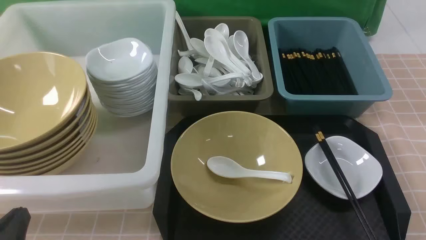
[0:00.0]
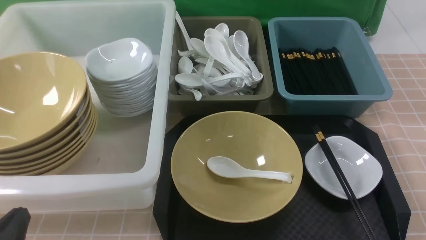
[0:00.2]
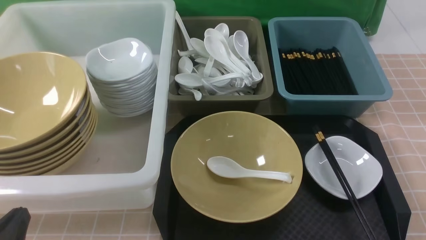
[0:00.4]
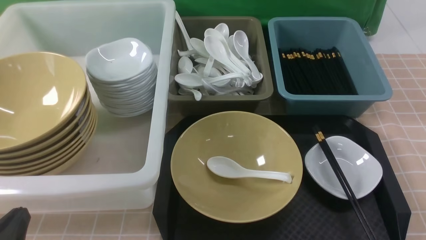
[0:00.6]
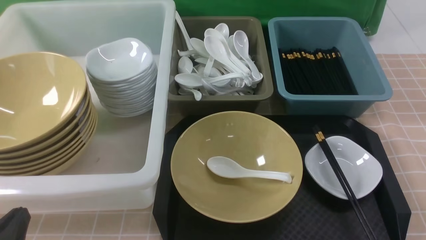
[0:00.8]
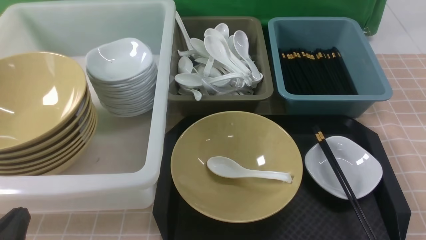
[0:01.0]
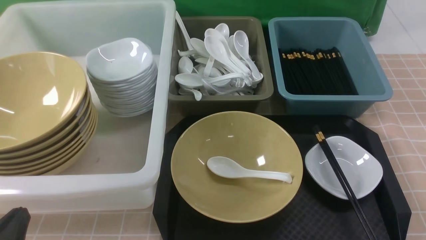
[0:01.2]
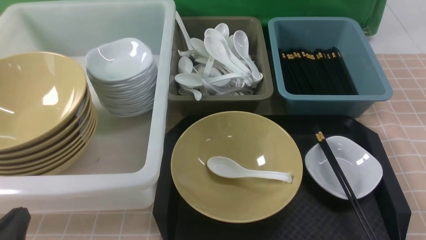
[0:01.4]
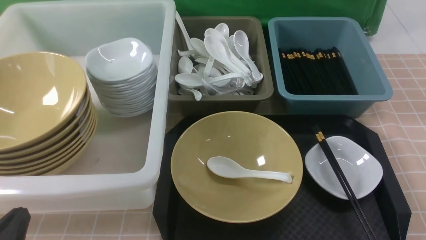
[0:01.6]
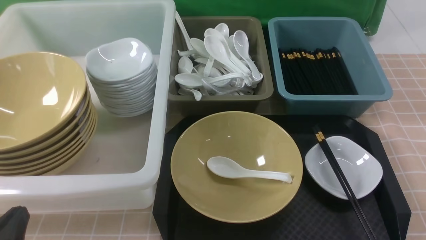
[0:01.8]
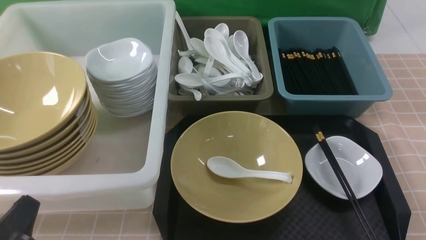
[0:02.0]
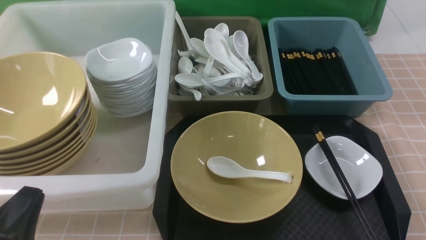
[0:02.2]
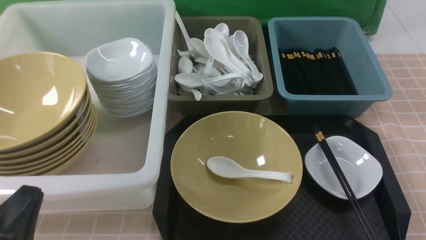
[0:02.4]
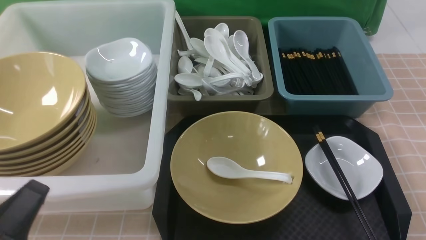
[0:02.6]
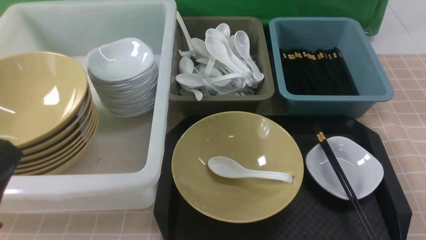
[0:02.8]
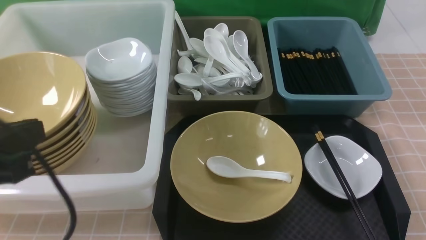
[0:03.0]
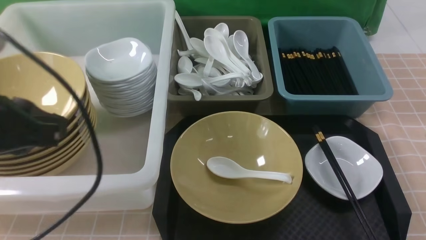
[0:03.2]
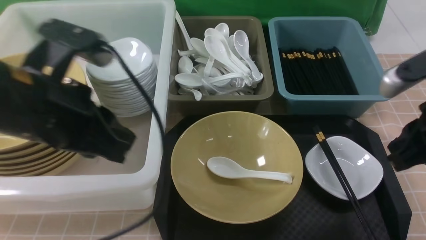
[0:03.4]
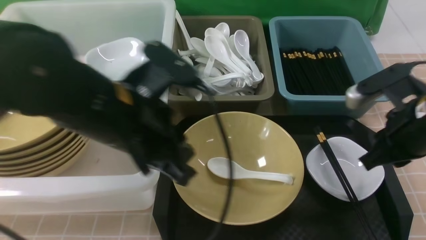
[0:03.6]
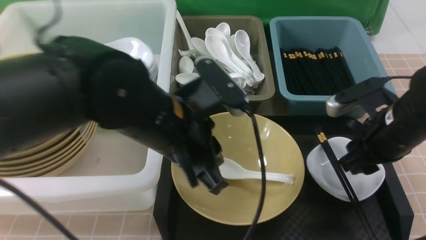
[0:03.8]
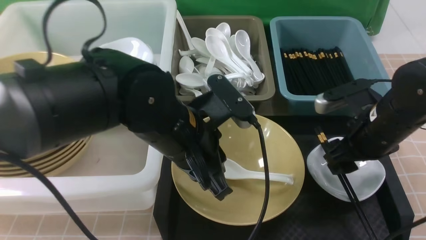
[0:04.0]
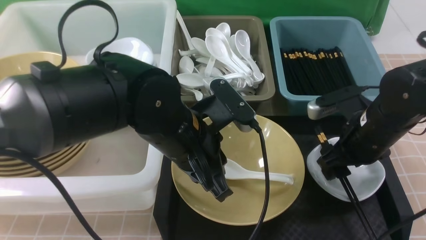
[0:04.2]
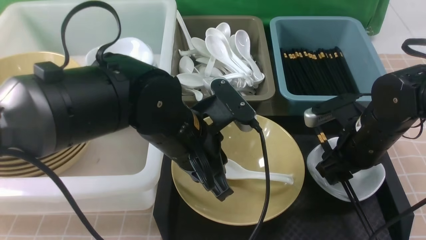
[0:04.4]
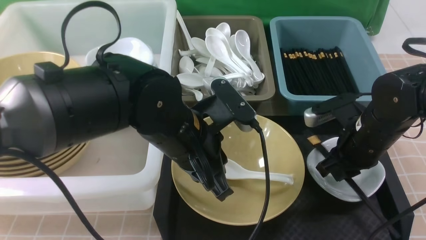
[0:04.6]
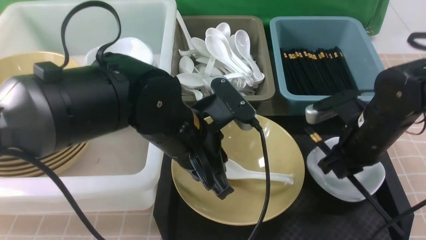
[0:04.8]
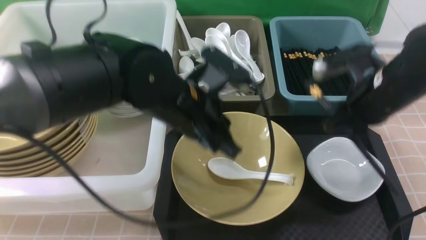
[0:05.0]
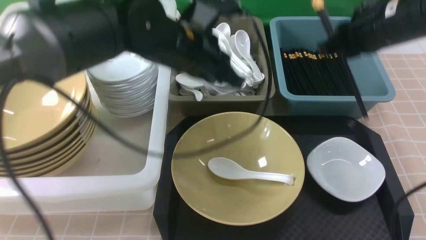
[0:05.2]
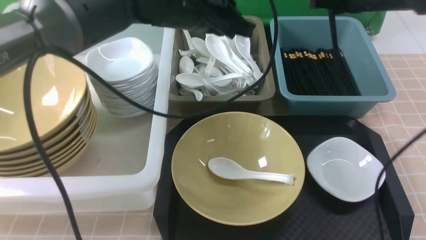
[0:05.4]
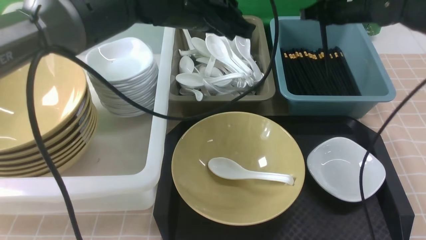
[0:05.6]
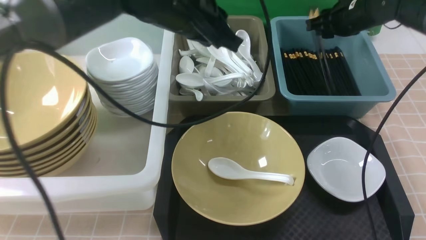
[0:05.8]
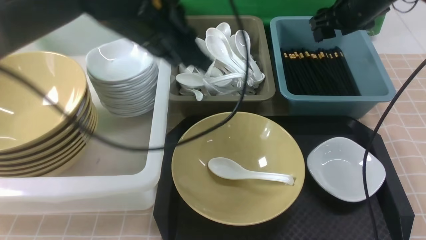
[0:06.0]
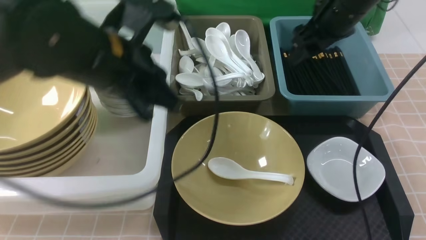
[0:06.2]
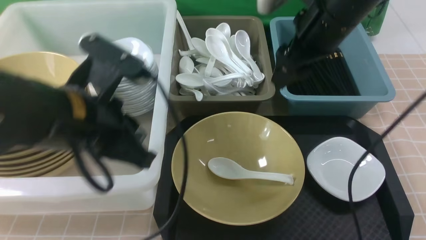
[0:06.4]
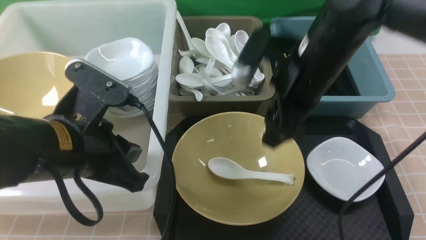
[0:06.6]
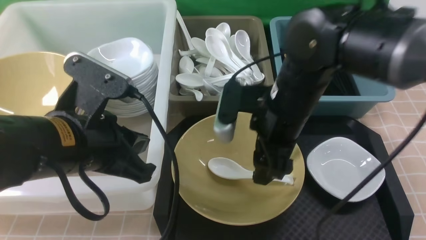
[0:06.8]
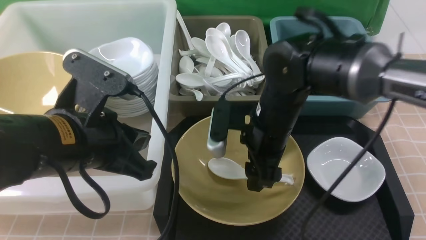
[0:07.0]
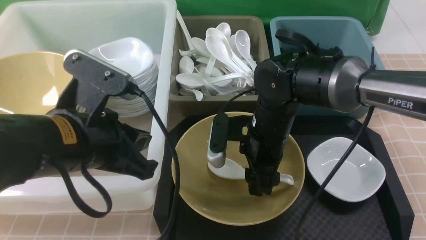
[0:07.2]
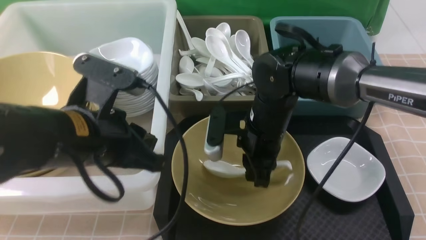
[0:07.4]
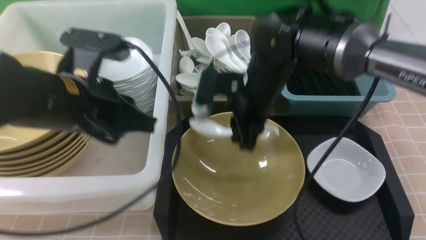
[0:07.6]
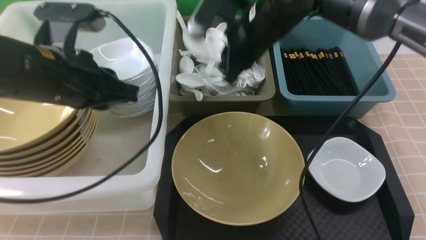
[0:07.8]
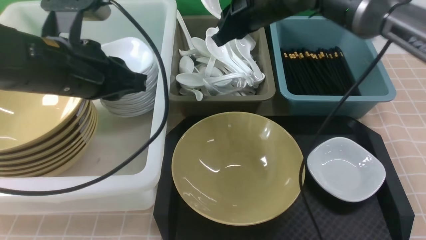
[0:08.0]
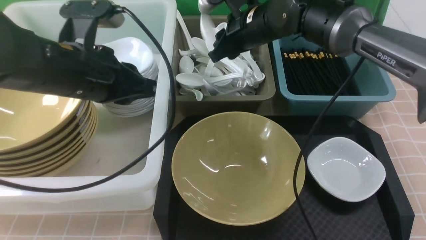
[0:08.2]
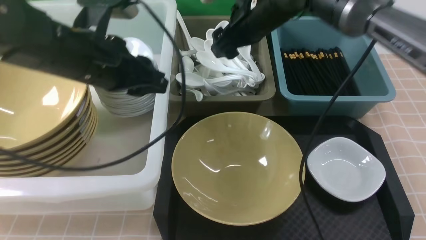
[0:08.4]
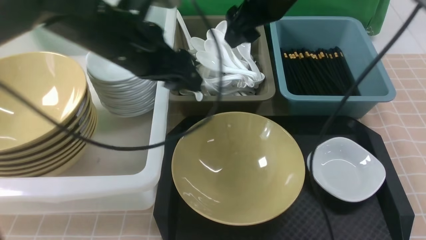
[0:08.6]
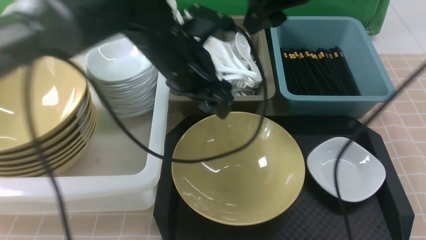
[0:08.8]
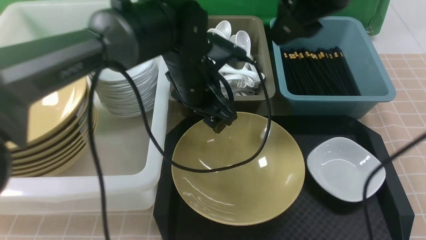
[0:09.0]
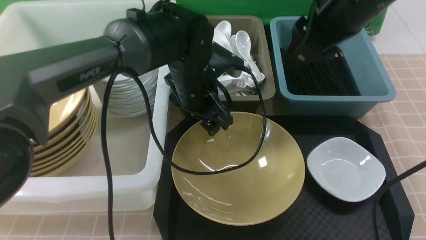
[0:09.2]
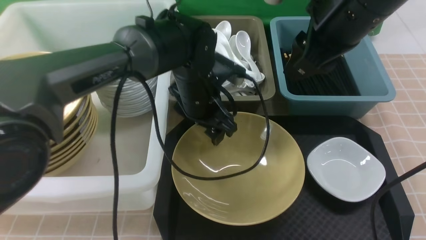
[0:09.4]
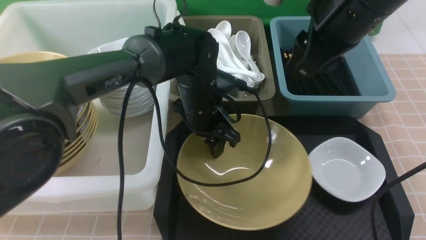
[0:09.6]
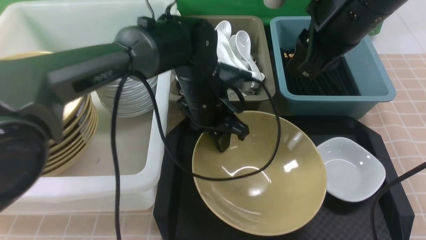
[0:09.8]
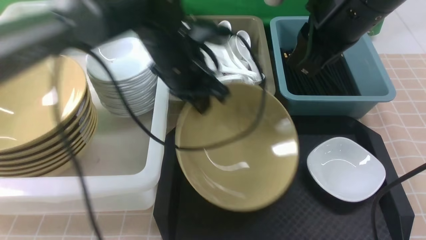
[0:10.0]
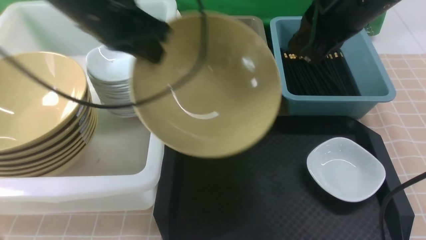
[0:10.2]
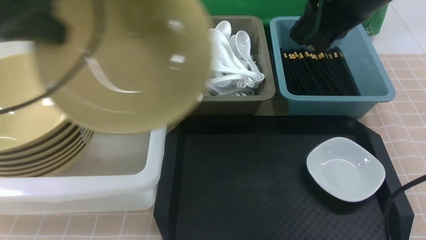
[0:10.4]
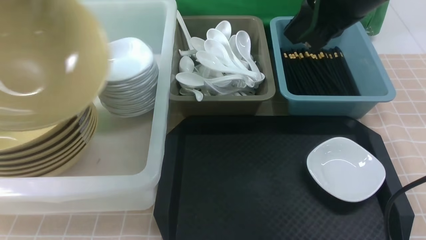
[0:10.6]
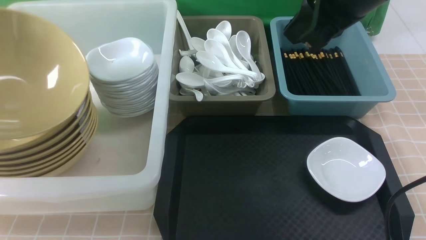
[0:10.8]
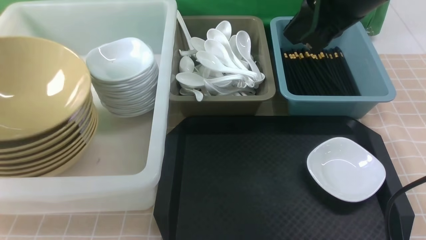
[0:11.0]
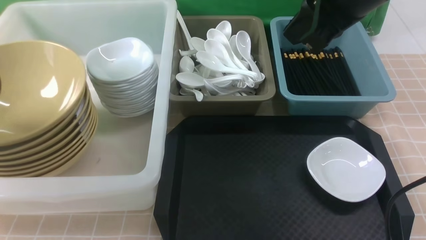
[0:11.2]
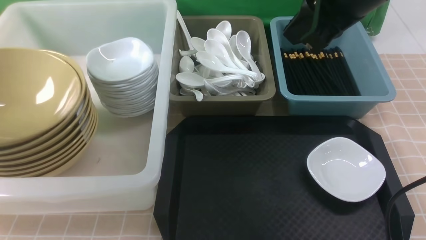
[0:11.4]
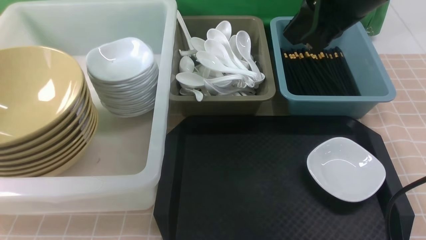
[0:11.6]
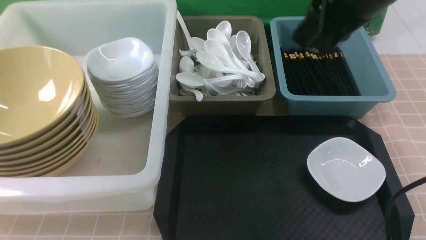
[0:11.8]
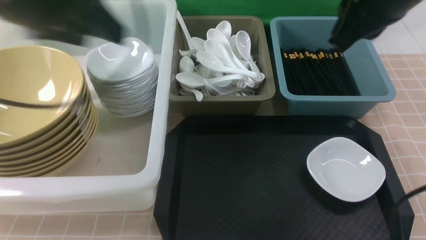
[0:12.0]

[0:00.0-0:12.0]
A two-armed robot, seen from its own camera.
Task of the whole recording: on brown table put chopsticks spoon bowls plates into blue grey white boxes.
Step, 0:00.0 to 0:04.8: use the right arm to grab the chopsticks.
Step, 0:05.0 to 0:06.2: use the right arm to put the chopsticks into the small storage box on the right.
Step, 0:06.4 to 0:07.4: use the right arm to grab the soup spoon in the middle.
Step, 0:07.6 to 0:08.4: use the right arm to put the soup spoon into the small storage box in the middle.
Step, 0:08.6 to 0:10.0: use the left arm to grab the yellow noodle bowl on the left.
Step, 0:10.2 to 0:11.6: use the left arm to put the noodle bowl into the large storage box on the left.
0:00.0 to 0:01.6: Both grippers stay about where they are.
0:01.6 to 0:03.0: The two grippers go roughly 15 cm upward.
0:03.0 to 0:04.4: The right gripper heads forward, downward and to the left, covering some 25 cm, and opens. Meanwhile the left gripper travels to the right, forward and downward by about 25 cm.
0:04.4 to 0:06.0: The left gripper travels upward and forward by about 10 cm; the right gripper moves forward and upward, some 20 cm, and closes and opens again.
0:06.0 to 0:07.6: The left gripper is displaced to the left and backward by approximately 10 cm. Meanwhile the right gripper goes some 20 cm to the left and backward, and closes its fingers.
0:07.6 to 0:09.0: The left gripper heads to the right, forward and downward, covering some 20 cm, and opens its fingers. Meanwhile the right gripper shifts approximately 15 cm upward and to the right, and opens.
0:09.0 to 0:10.4: The right gripper closes its fingers; the left gripper travels to the left and upward by approximately 30 cm, and closes.
0:10.4 to 0:12.0: The left gripper is displaced to the right by approximately 10 cm, and opens its fingers.

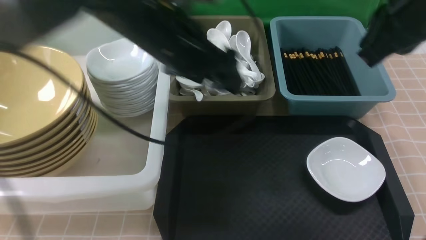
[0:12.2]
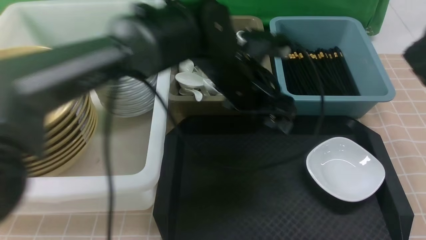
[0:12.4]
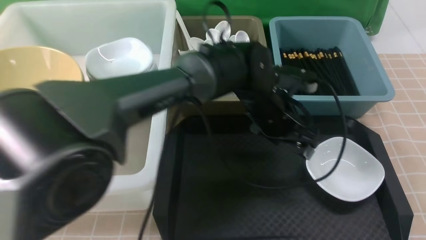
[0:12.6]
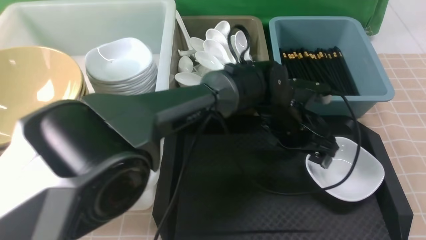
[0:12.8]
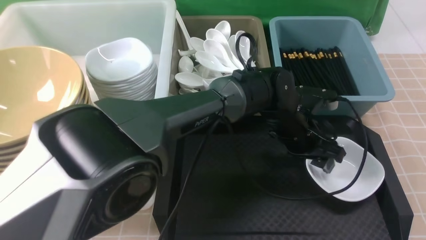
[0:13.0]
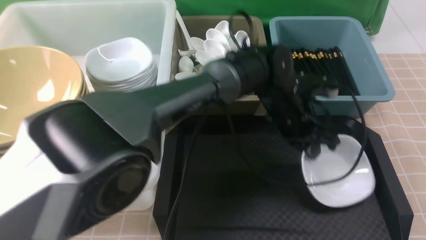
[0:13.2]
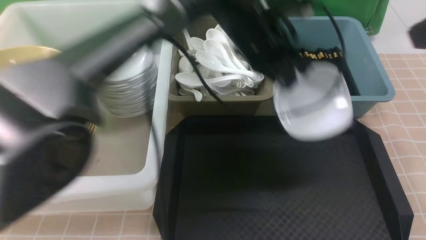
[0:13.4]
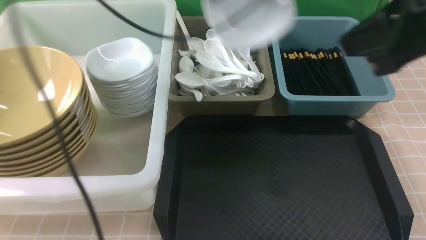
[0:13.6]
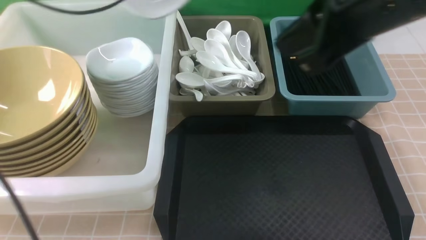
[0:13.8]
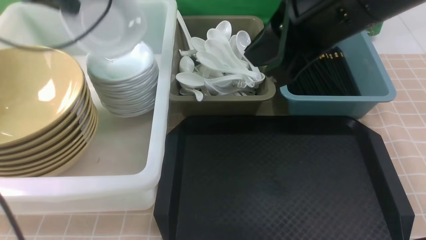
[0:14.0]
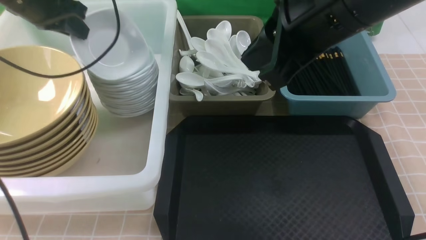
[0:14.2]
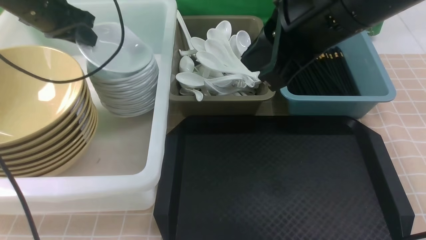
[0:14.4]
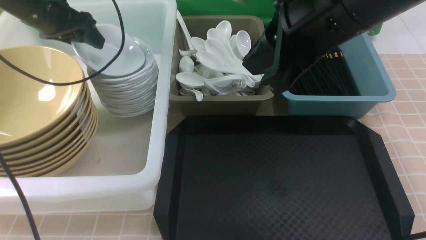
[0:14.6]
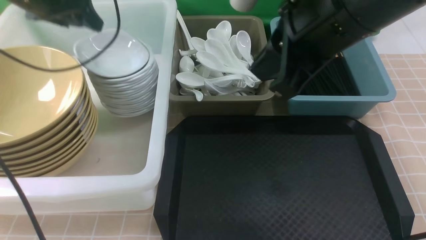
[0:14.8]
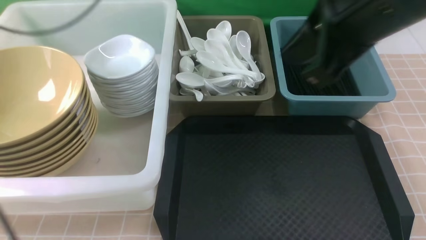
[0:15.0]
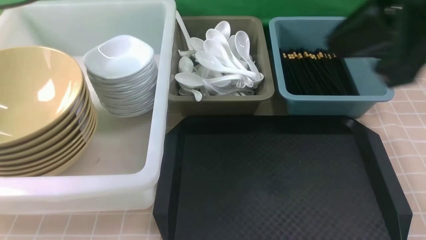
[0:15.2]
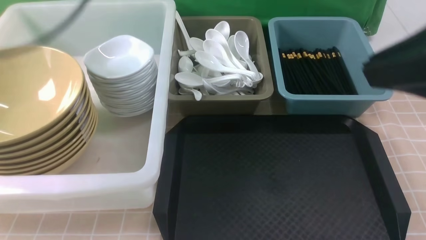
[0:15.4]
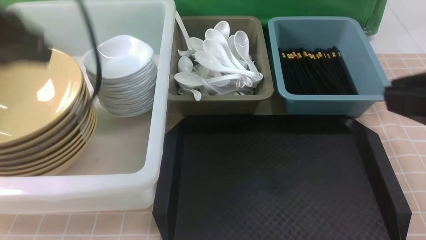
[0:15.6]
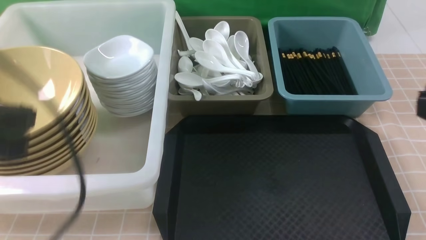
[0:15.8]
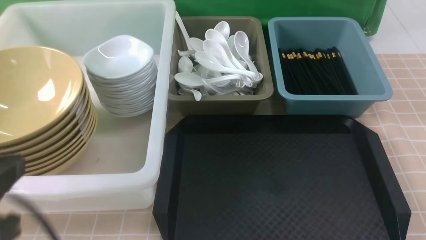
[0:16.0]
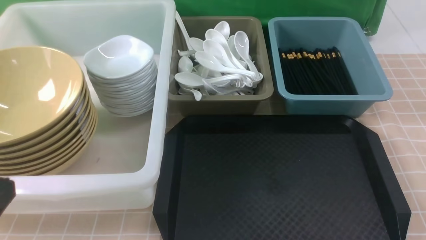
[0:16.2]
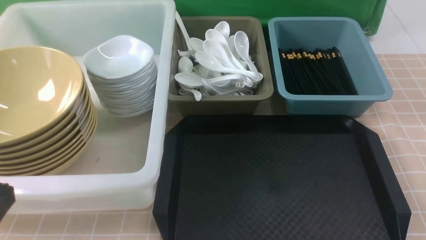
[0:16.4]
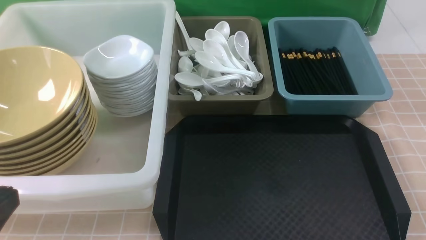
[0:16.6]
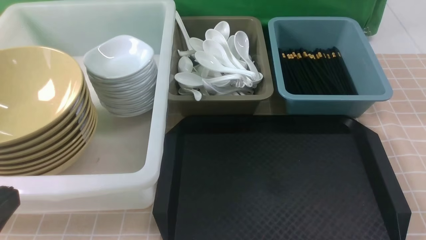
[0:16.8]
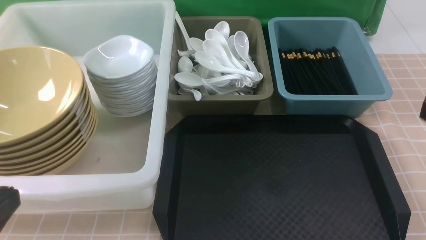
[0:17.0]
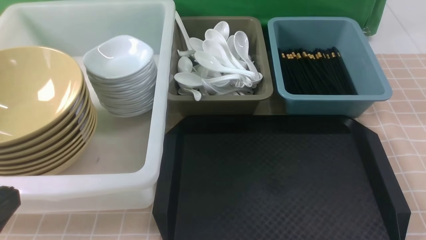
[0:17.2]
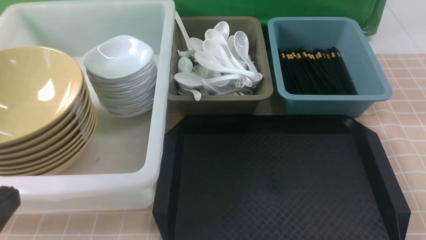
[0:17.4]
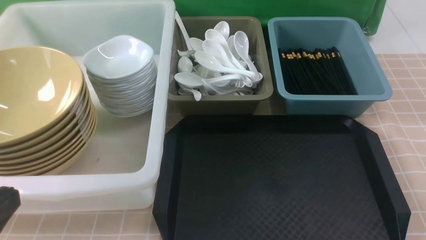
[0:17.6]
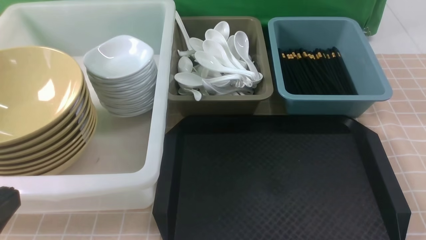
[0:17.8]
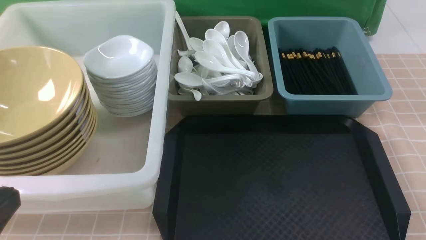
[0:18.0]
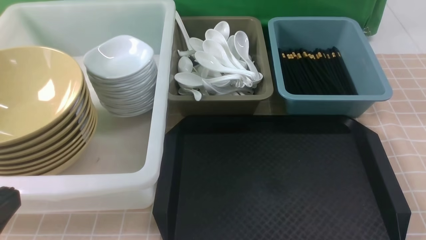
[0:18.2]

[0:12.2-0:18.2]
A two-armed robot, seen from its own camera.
Task of the whole recording: on brown table put chopsticks spoon bowls plates into blue grey white boxes.
Step, 0:12.2 to 0:13.2: use the left arm to grab the plate.
Step, 0:13.4 to 0:14.8: use the left arm to put the plate into the large storage box on the left.
0:12.2 to 0:13.8: The left gripper shifts some 20 cm to the left, upward and forward, and closes. The right gripper is displaced to the left by some 5 cm.
0:13.8 to 0:15.2: The grippers both shift backward by roughly 5 cm. The left gripper moves some 10 cm downward and comes back, and opens.
0:15.2 to 0:16.6: The right gripper travels backward, to the right and downward by roughly 15 cm. Meanwhile the left gripper moves backward and downward, roughly 35 cm, and closes its fingers.